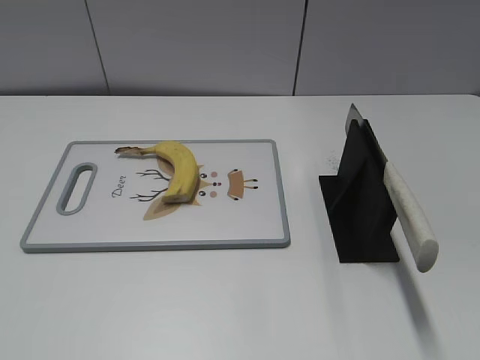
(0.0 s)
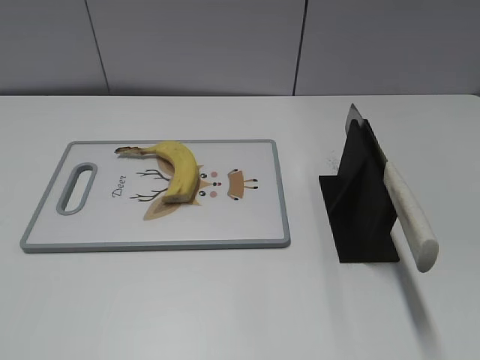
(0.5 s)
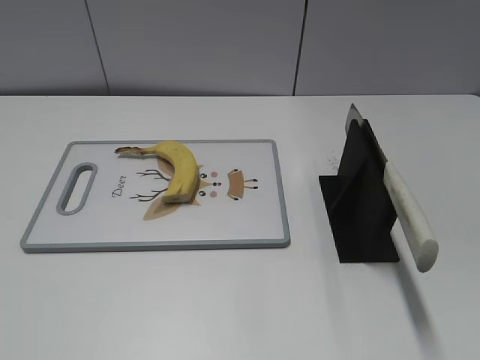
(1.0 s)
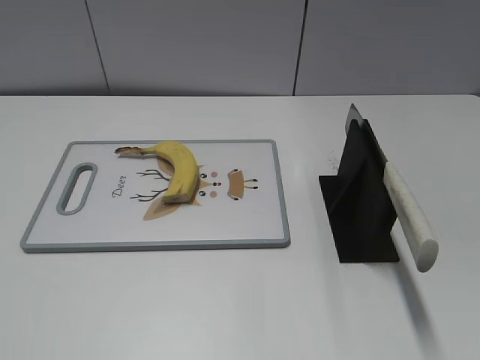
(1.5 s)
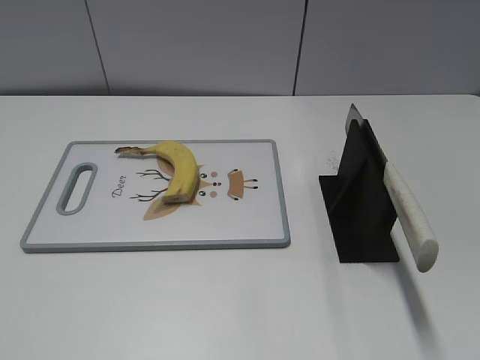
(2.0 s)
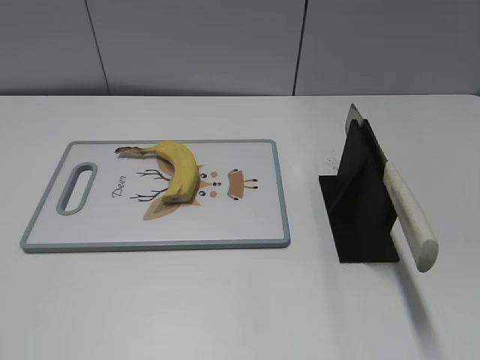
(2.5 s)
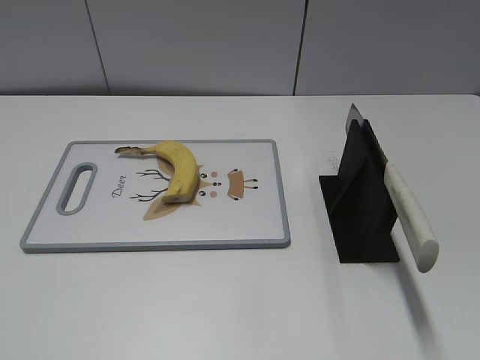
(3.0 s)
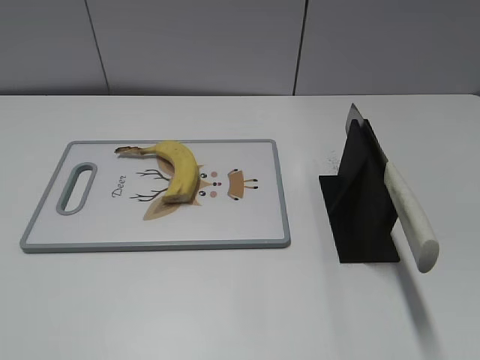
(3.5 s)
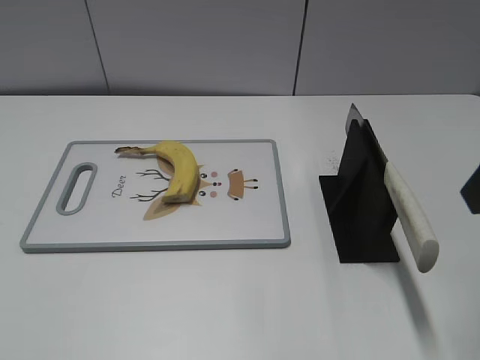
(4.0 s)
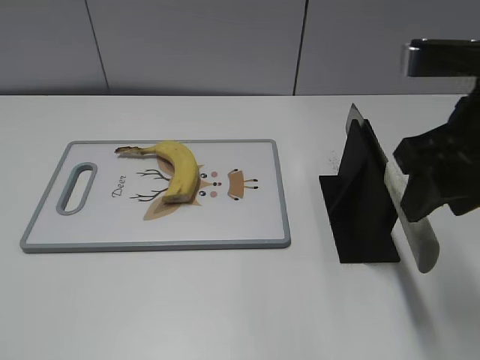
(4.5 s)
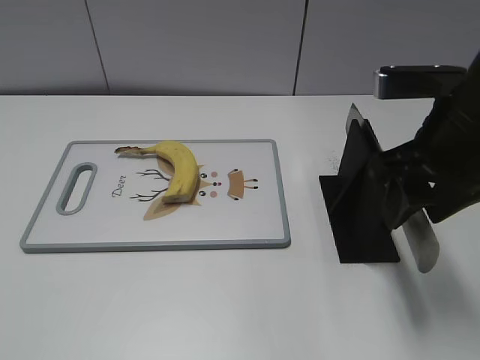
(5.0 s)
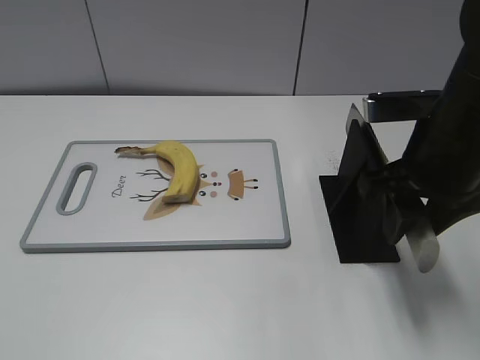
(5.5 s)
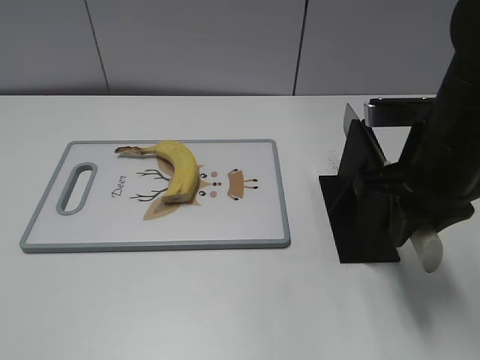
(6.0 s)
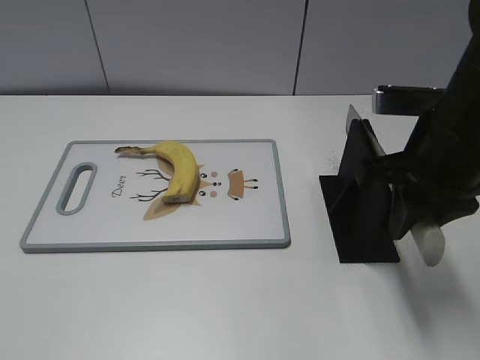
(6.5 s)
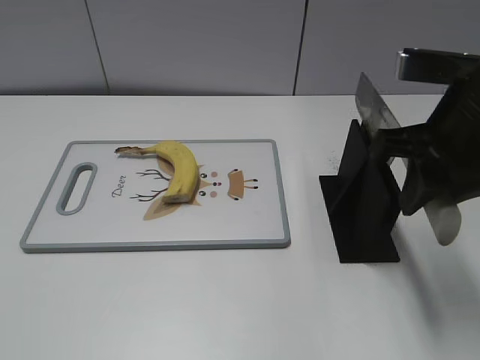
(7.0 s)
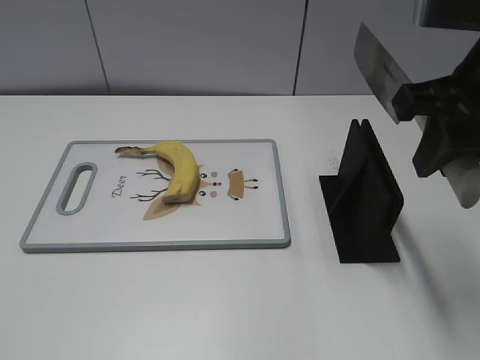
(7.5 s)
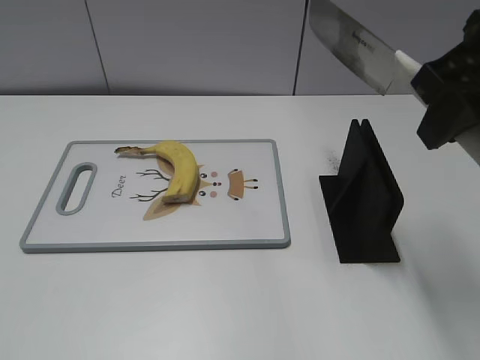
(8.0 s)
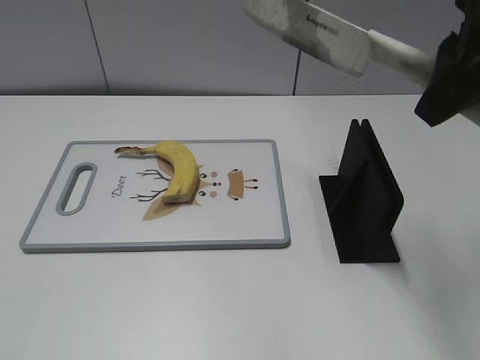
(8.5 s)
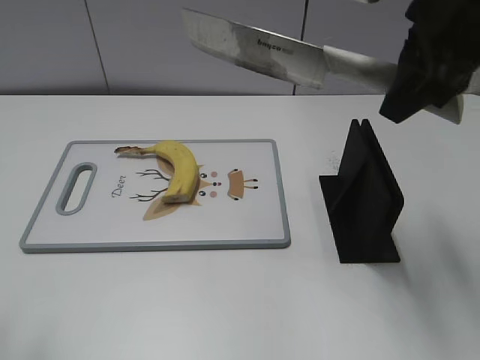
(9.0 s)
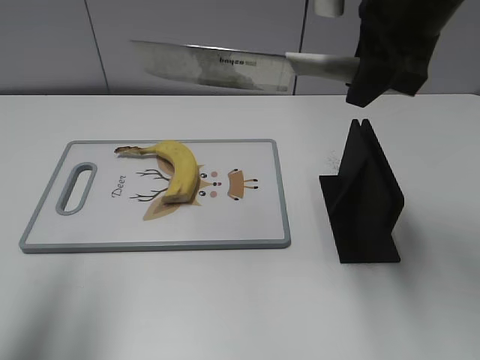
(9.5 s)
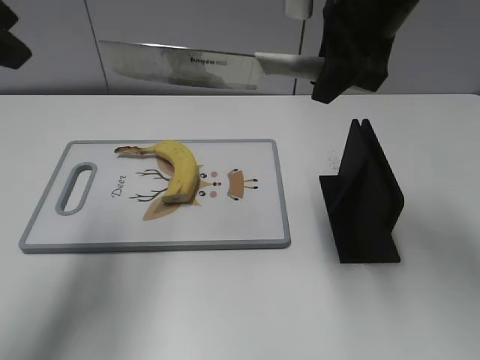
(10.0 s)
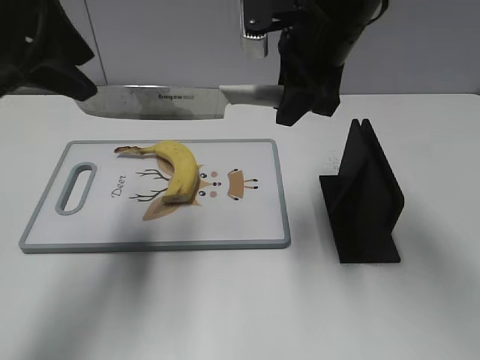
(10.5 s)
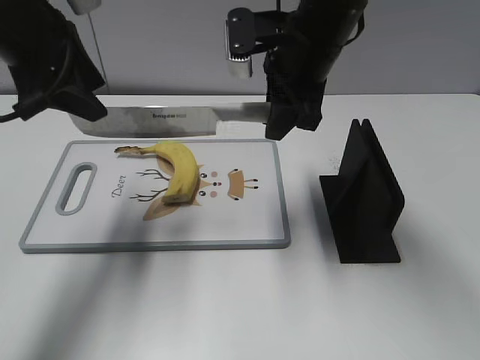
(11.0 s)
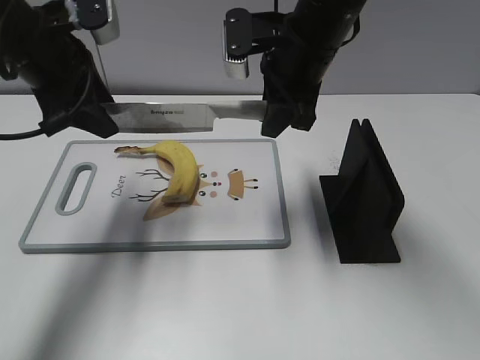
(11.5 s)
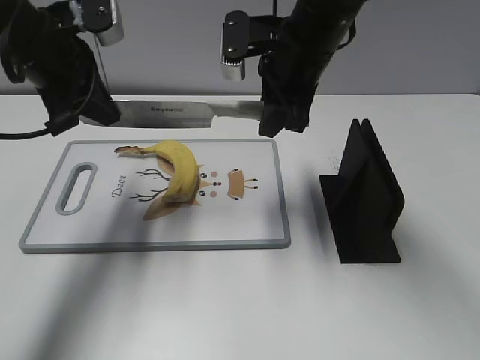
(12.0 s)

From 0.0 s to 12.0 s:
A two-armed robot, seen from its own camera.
Task of the whole recording: cut banana.
Step, from 0.0 s to 7.5 s: Grab the knife handle with your right hand.
From 2.0 s to 4.0 s: The right gripper shifts approximately 20 cm forward.
From 4.0 s to 6.0 s: The right gripper travels downward and forward by approximately 15 cm, and closes its fingers.
From 6.0 s to 8.0 s: The right gripper is displaced upward by about 10 cm.
From 8.0 s to 10.0 s: The left gripper heads forward, covering about 25 cm, while the right gripper shifts about 15 cm forward and to the left.
From 10.0 s to 12.0 s: The right gripper shifts approximately 10 cm downward and to the left, while the left gripper moves downward and forward, approximately 15 cm, and closes its fingers.

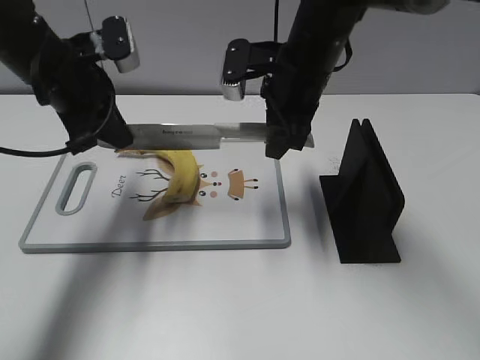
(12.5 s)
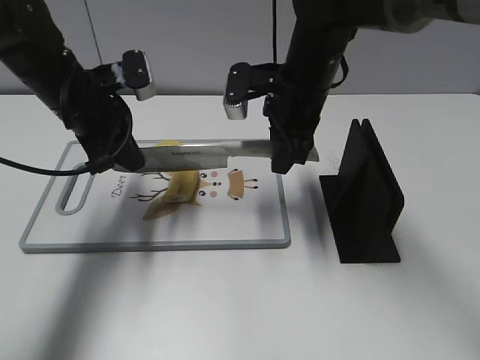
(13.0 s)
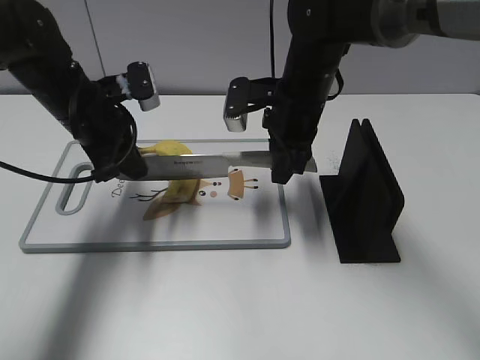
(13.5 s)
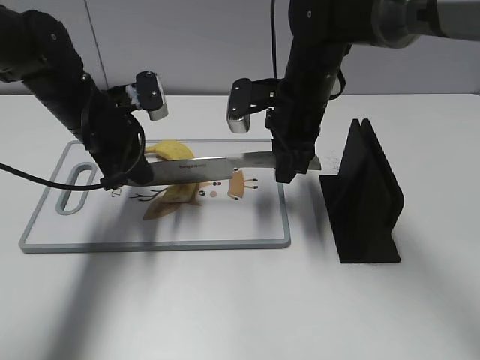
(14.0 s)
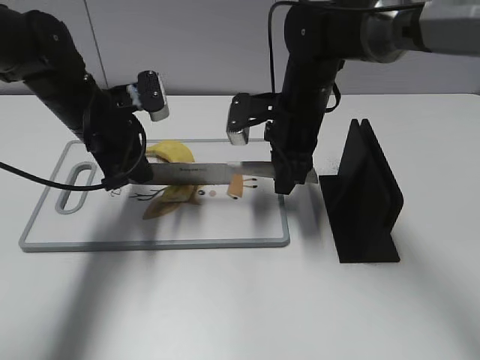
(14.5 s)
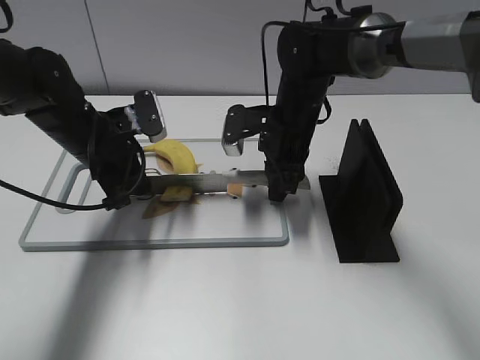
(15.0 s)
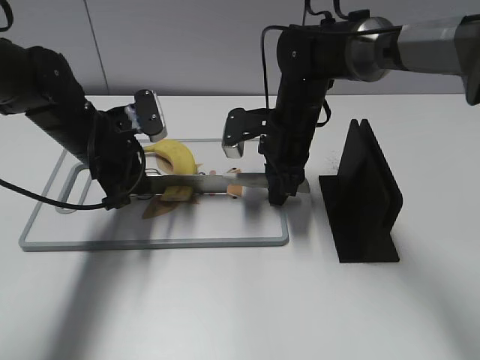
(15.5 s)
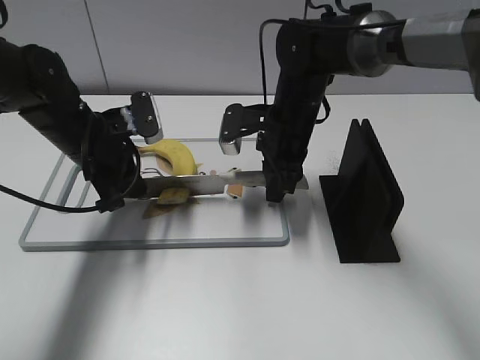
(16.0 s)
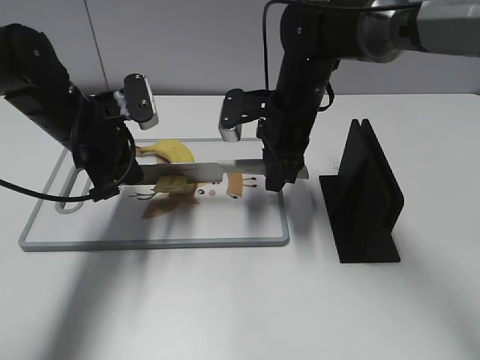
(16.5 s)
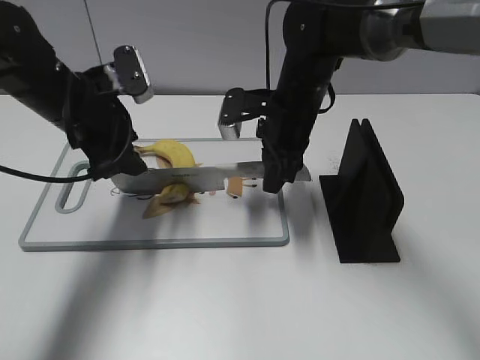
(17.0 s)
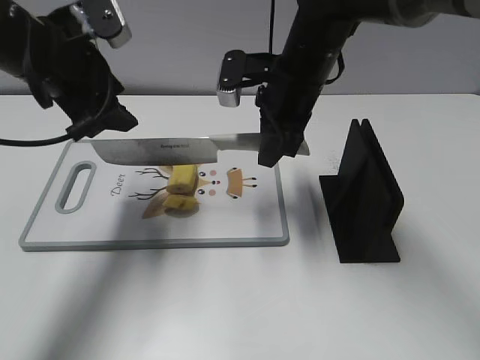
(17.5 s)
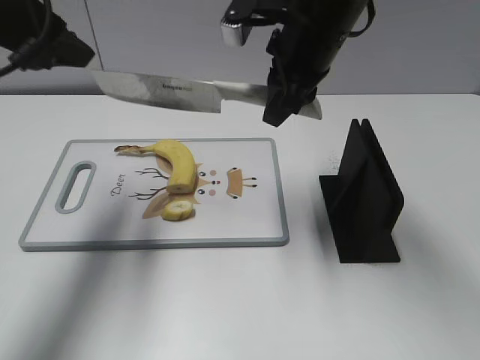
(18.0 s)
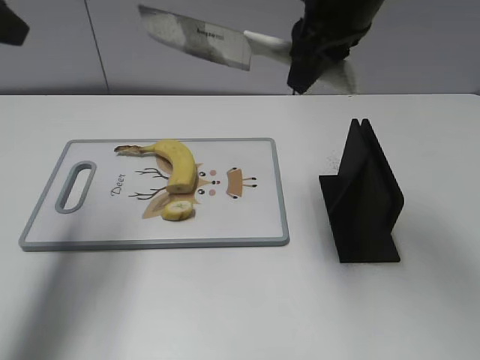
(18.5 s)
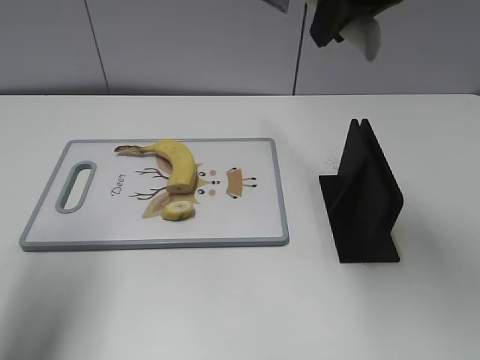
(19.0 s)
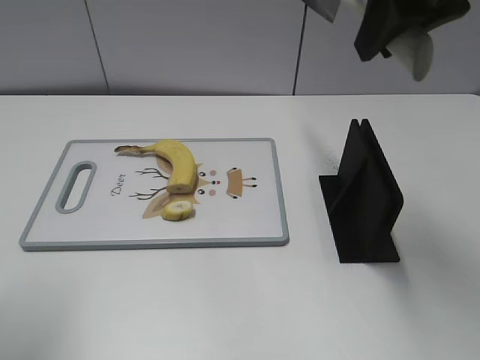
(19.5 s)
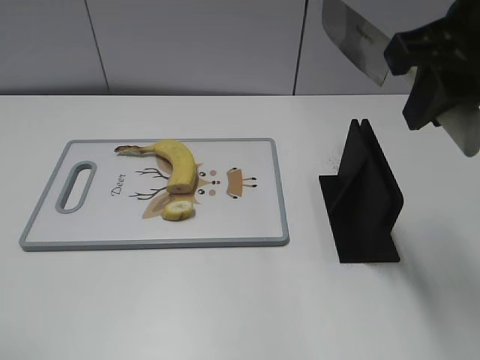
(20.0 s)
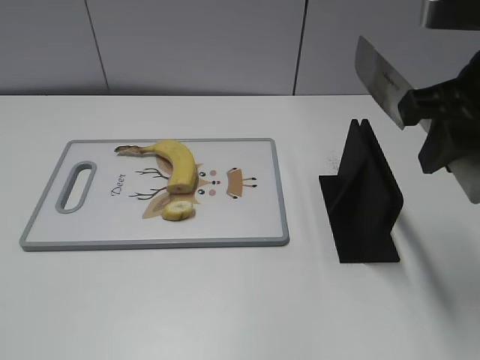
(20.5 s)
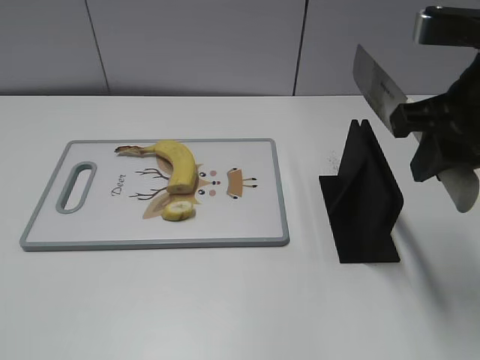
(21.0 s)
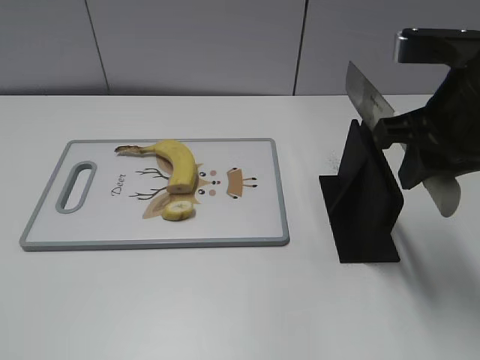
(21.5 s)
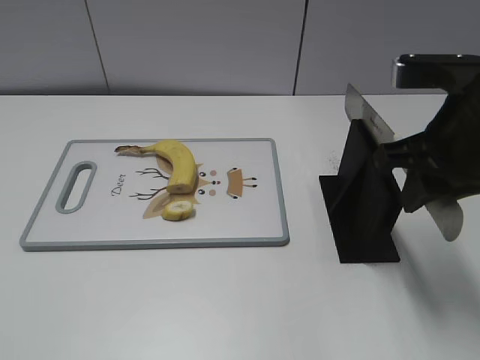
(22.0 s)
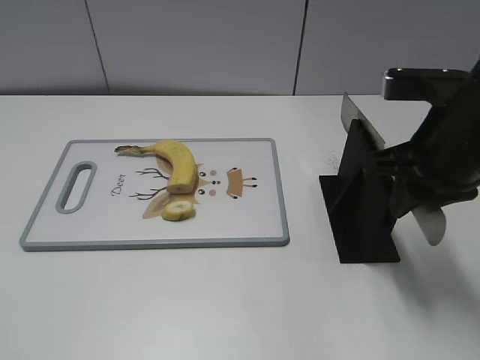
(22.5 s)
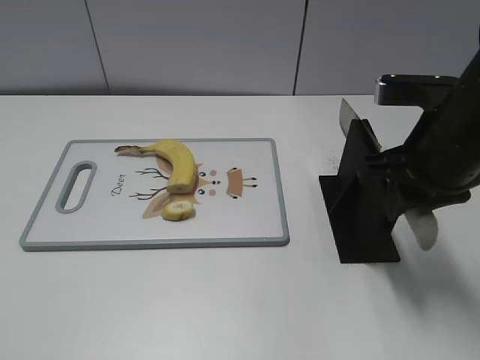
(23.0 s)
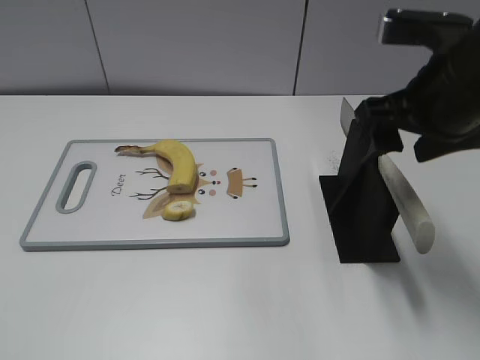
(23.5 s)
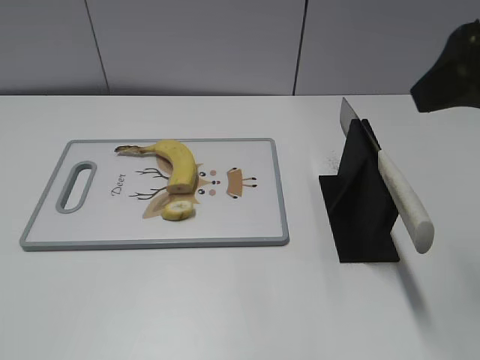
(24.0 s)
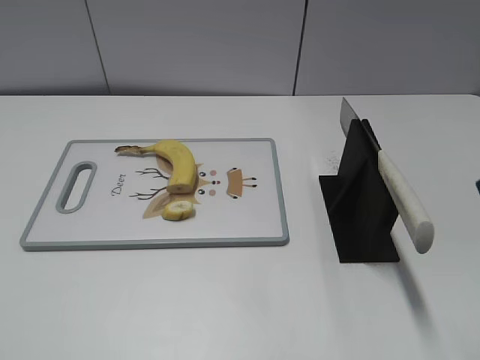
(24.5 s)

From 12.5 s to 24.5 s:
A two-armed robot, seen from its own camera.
Task of the whole recording: cut banana.
Step, from 12.5 s to 15.0 s: Lift the knife with your right hand.
Step, from 15.5 s to 19.0 s: Cut the banana with your right hand.
Step, from 19.5 s to 21.5 s: Lift the knife with your right hand.
From 12.5 s to 14.5 s: Both grippers travel together downward, approximately 5 cm.
From 14.5 s to 16.5 s: The grippers stay close to where they were, moving slightly.
From 16.5 s to 18.5 s: The right gripper goes approximately 15 cm upward. The left gripper is displaced upward and to the left by approximately 20 cm, and opens up.
From 18.5 s to 20.5 s: The right gripper moves backward and to the right, approximately 15 cm. Meanwhile the left gripper shifts approximately 25 cm backward.
From 20.5 s to 22.5 s: The right gripper shifts about 5 cm downward.
From 22.5 s to 24.5 s: The right gripper goes about 15 cm backward and upward, and opens.

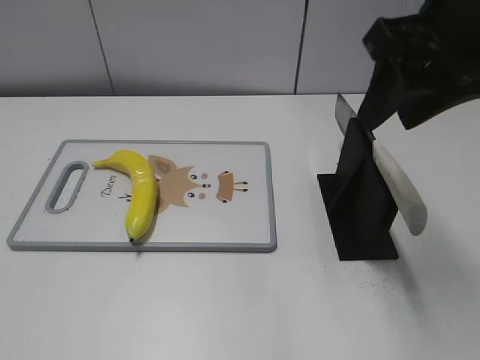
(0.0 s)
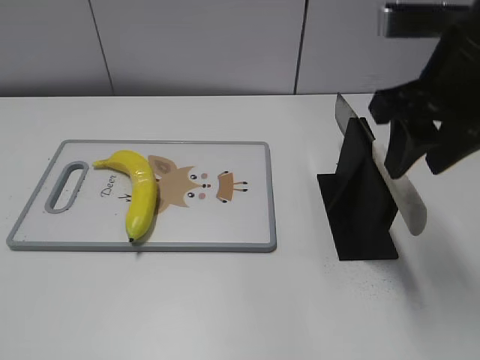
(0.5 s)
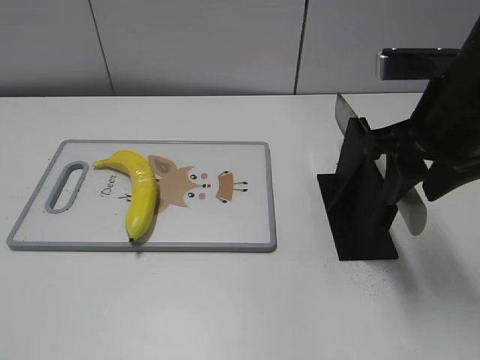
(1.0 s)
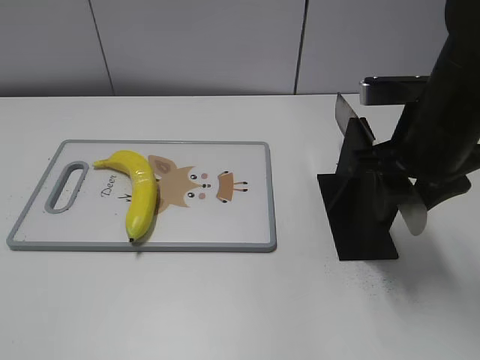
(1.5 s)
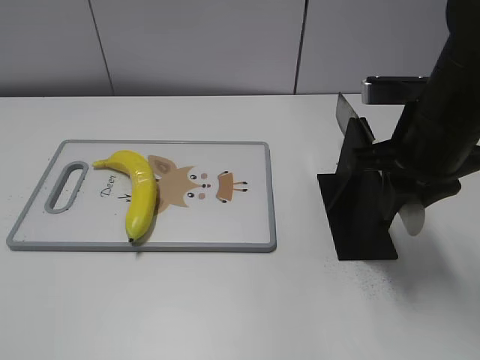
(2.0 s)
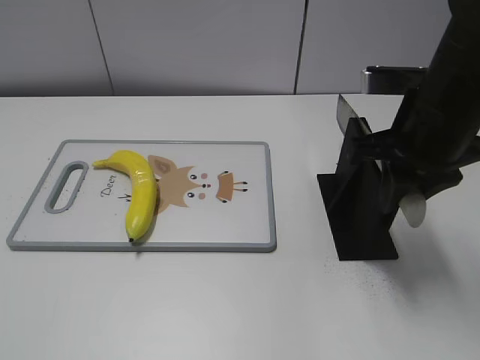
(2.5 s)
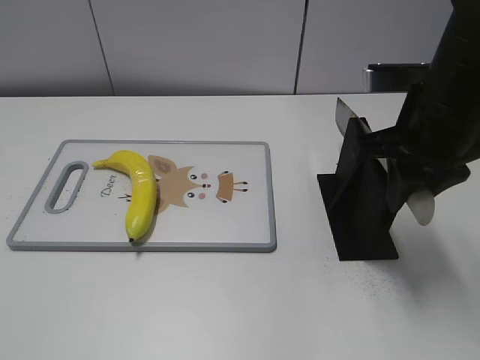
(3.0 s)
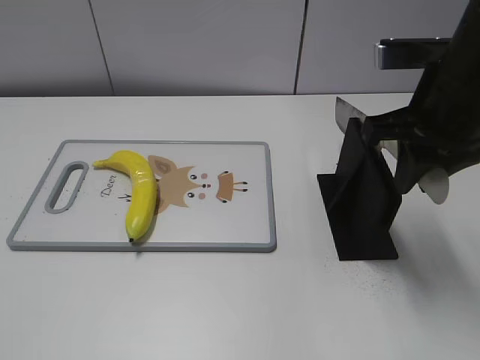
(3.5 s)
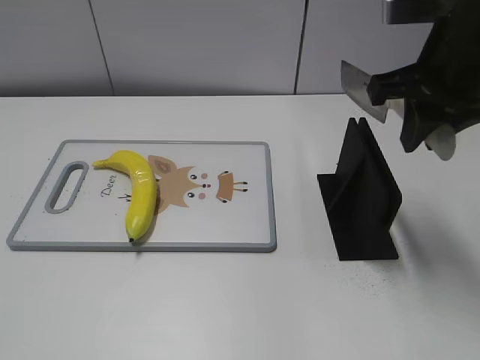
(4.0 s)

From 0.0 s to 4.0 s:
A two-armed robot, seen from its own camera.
Task of the whole recording: cut plastic banana.
Step, from 0.0 s to 3.0 s: Grab the knife handle with your right hand.
From 0.0 s to 2.0 s: The right gripper shifts some 10 cm downward, and closes up.
From 2.0 s to 4.0 s: The right gripper is displaced upward by approximately 5 cm.
